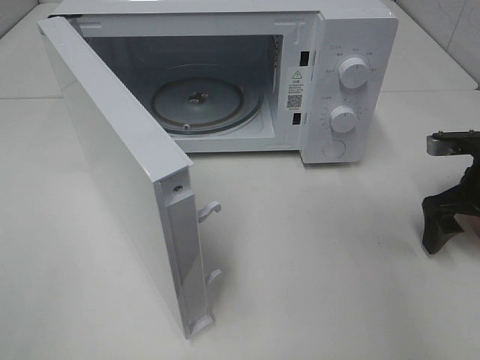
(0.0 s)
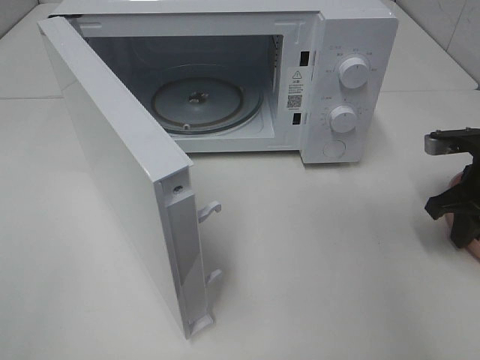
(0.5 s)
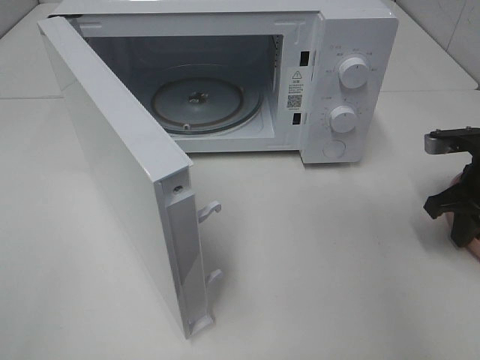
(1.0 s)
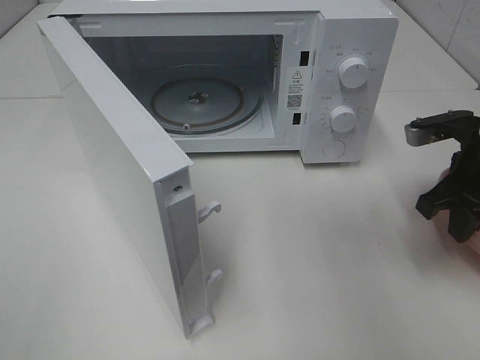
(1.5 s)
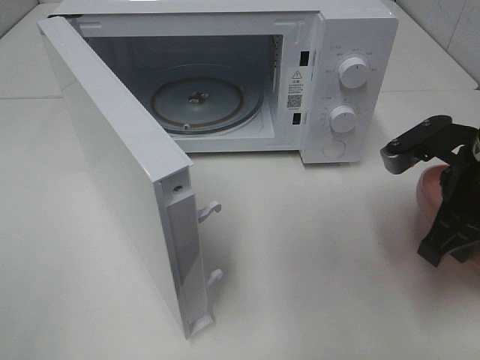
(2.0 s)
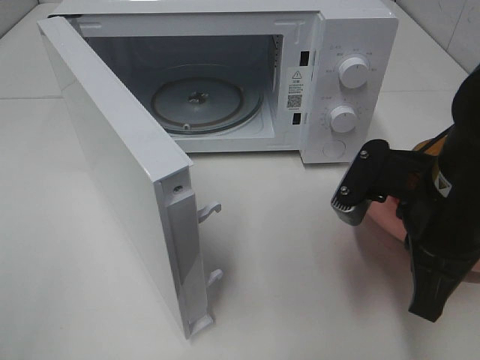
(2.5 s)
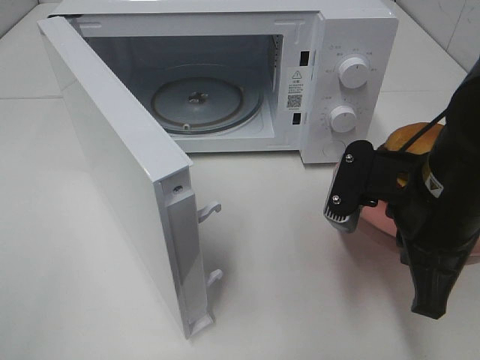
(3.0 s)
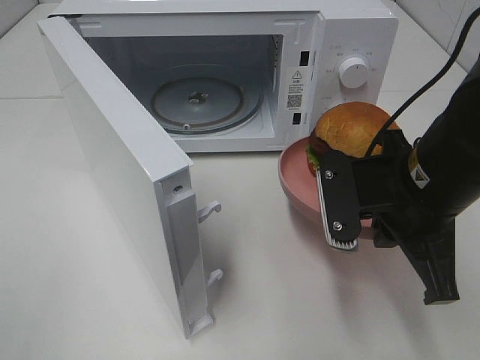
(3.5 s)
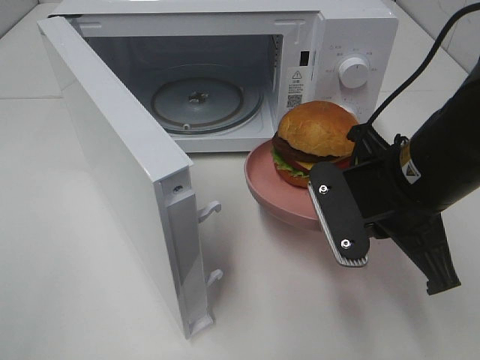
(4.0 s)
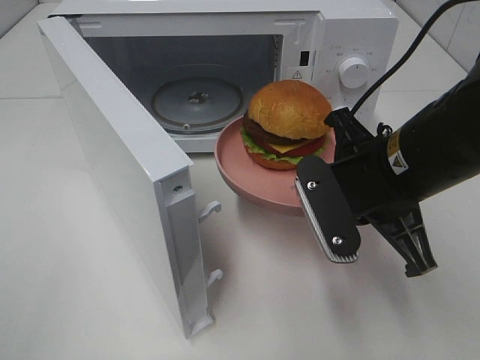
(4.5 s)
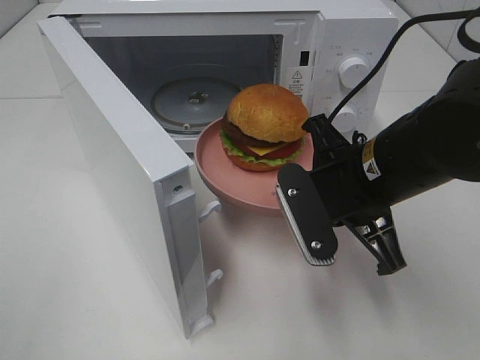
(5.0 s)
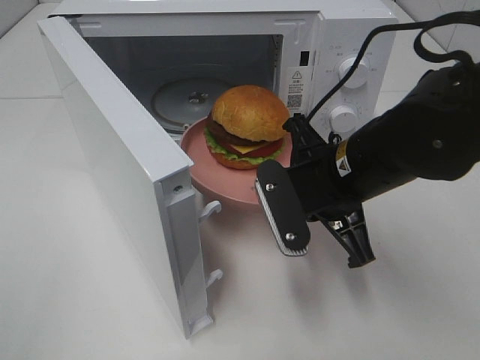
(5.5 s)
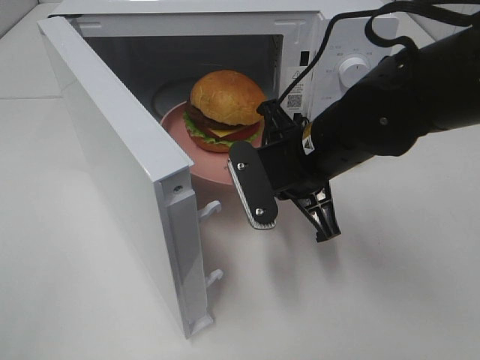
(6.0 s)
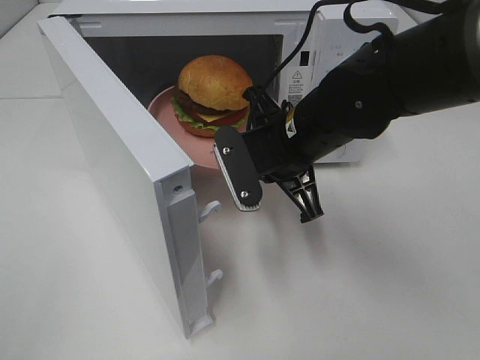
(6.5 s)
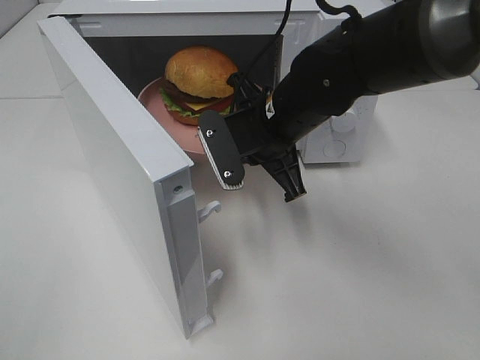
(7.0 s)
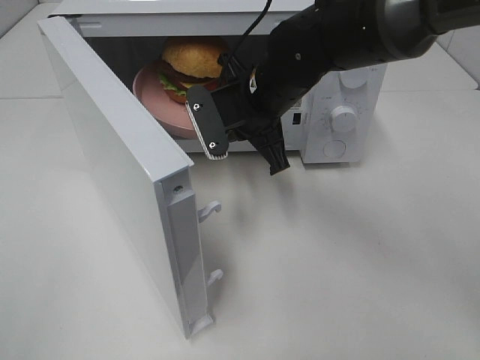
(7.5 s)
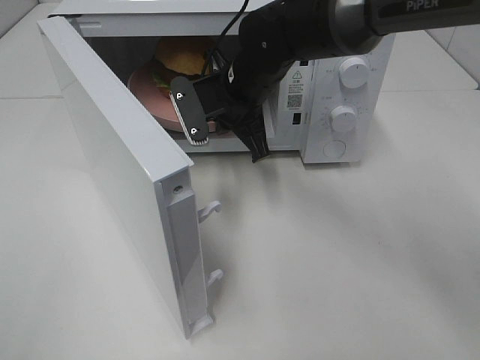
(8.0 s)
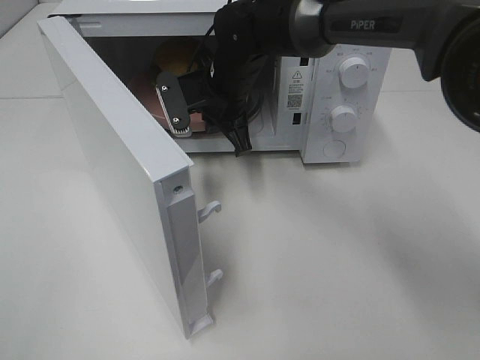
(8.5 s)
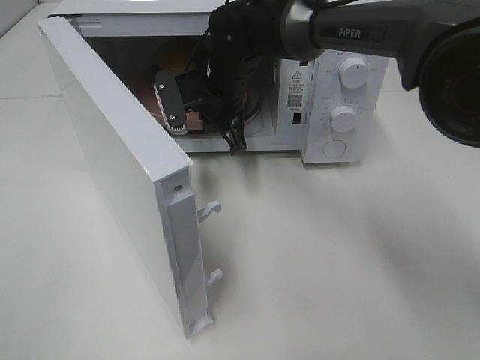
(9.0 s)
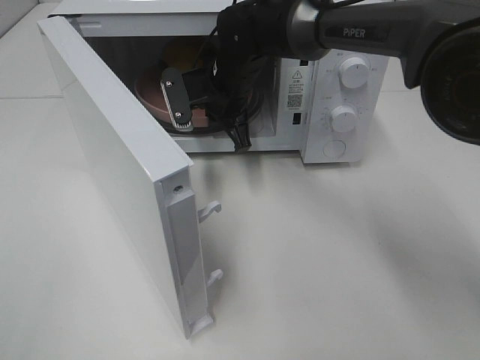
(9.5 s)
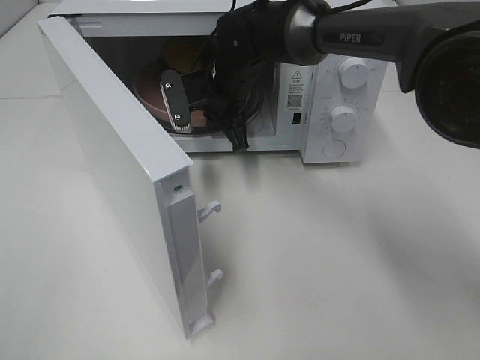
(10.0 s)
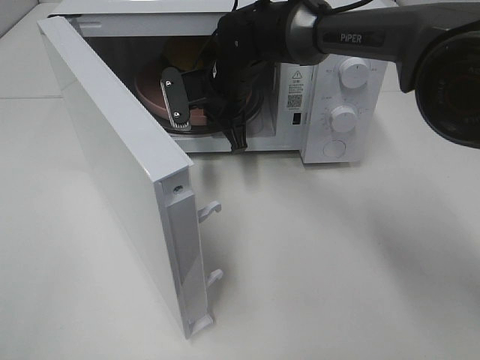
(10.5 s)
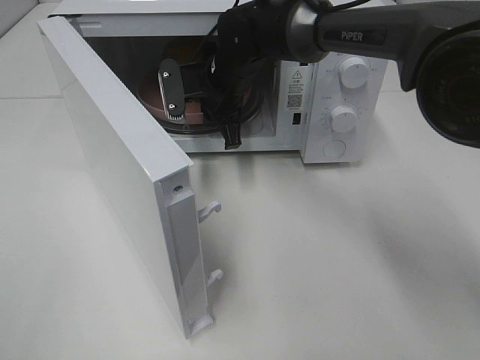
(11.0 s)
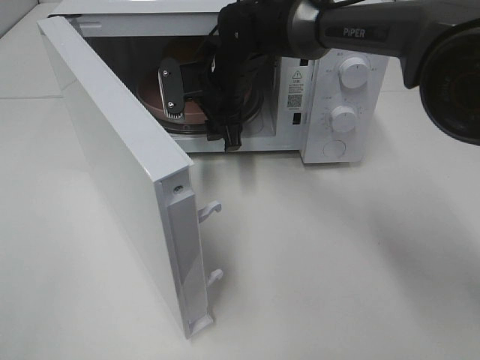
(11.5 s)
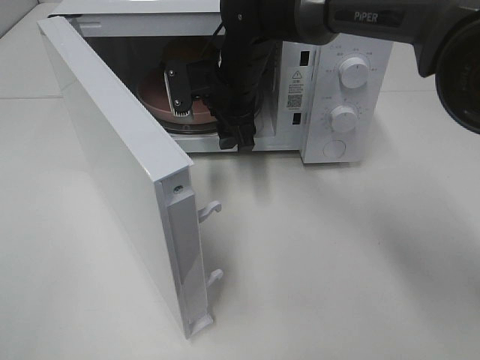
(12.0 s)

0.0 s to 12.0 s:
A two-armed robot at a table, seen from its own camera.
Task of the whole recording: Heat the burger.
Step, 0.5 to 11.0 s: Right hand: place the plate in the microwave.
0.0 to 2.0 s: The right gripper is displaced to the left, backward and upward by about 15 cm, and closes its fingers.
2.0 to 4.0 s: The right gripper shifts approximately 10 cm to the left.
4.0 to 6.0 s: The right gripper goes roughly 10 cm to the left and forward.
6.0 to 8.0 s: The right gripper goes about 15 cm forward and to the left.
8.0 to 10.0 s: The right gripper shifts by roughly 5 cm.
10.0 to 12.0 s: The right gripper opens.

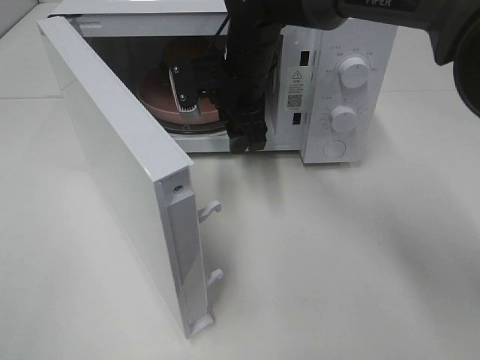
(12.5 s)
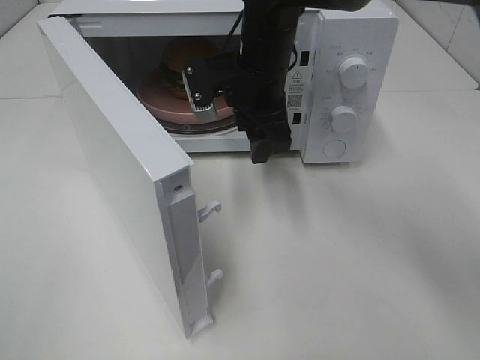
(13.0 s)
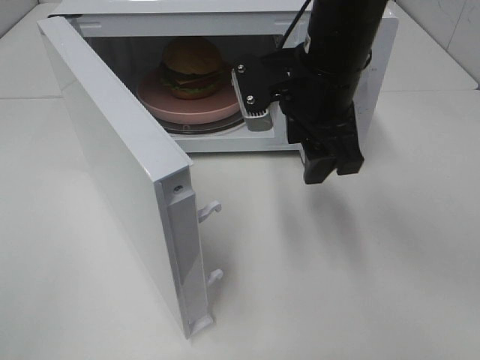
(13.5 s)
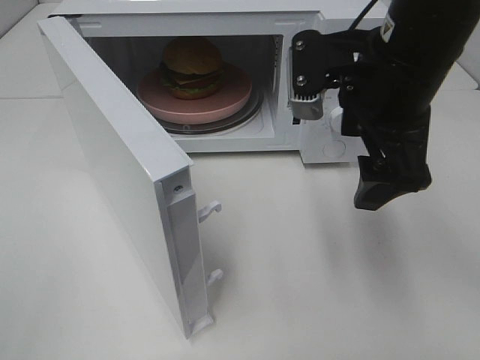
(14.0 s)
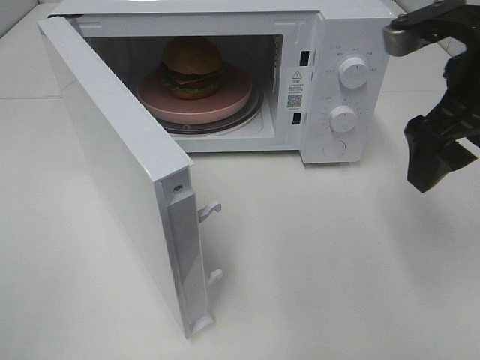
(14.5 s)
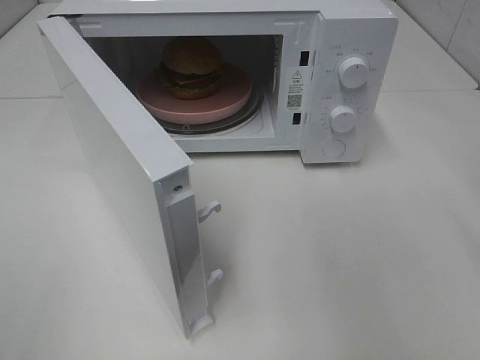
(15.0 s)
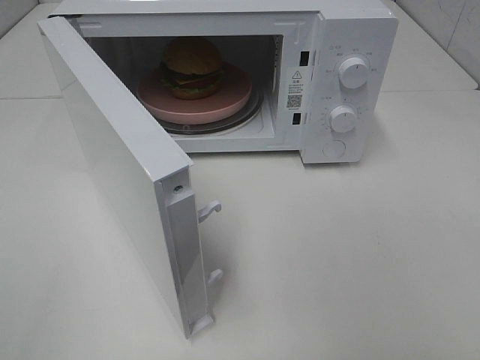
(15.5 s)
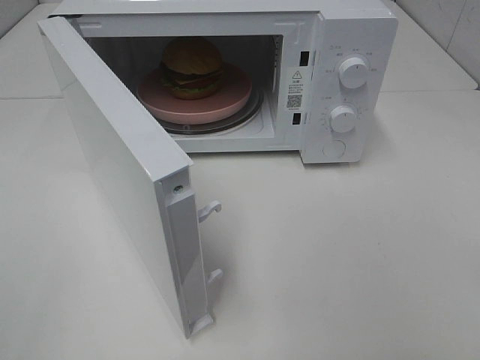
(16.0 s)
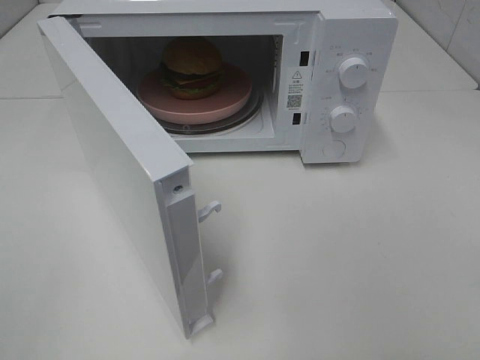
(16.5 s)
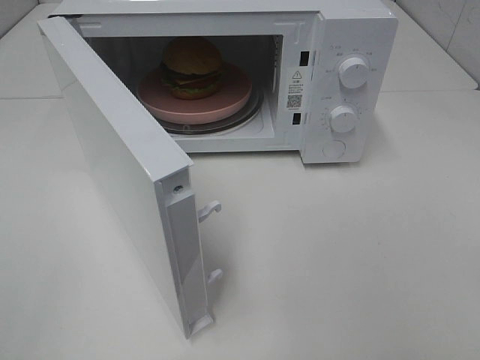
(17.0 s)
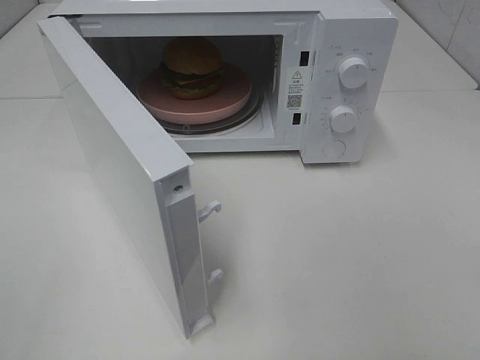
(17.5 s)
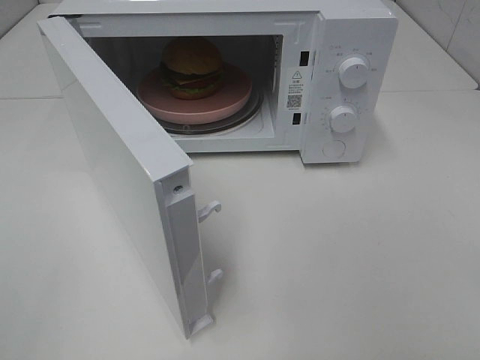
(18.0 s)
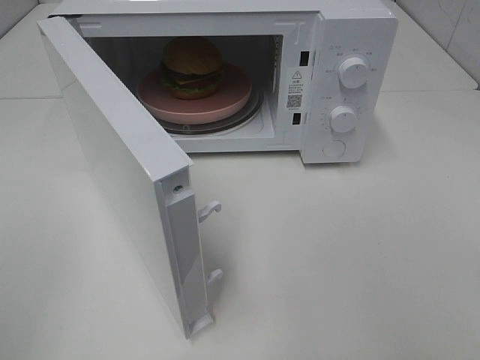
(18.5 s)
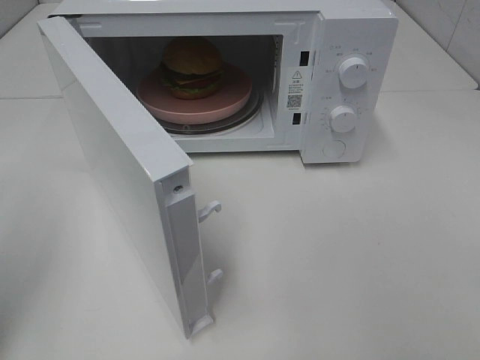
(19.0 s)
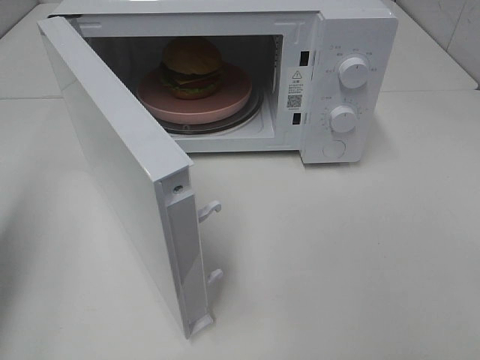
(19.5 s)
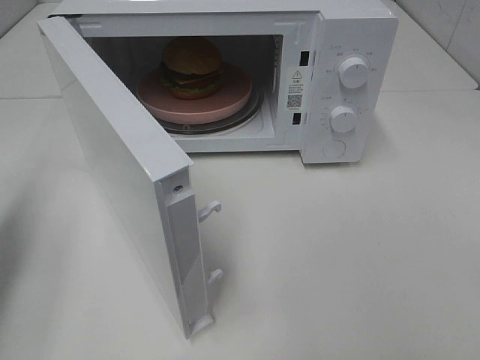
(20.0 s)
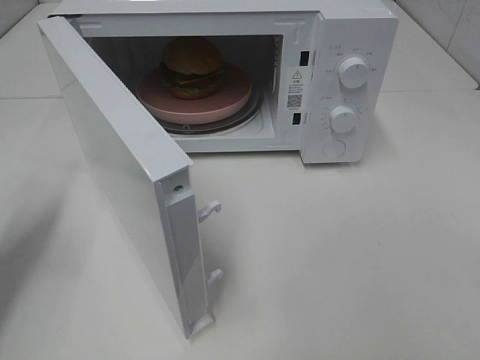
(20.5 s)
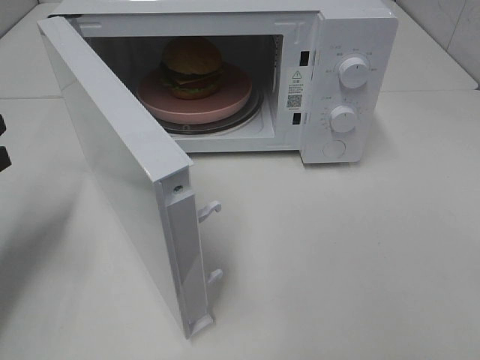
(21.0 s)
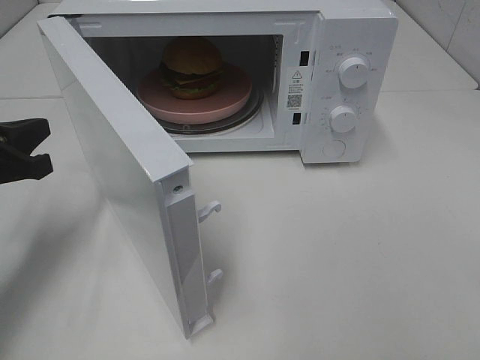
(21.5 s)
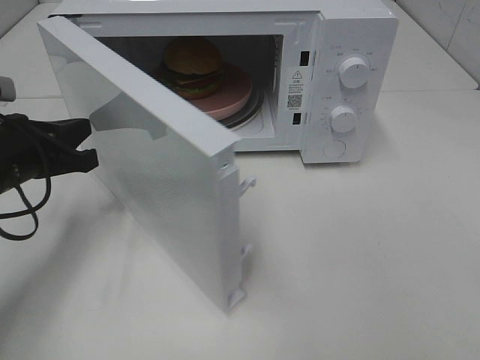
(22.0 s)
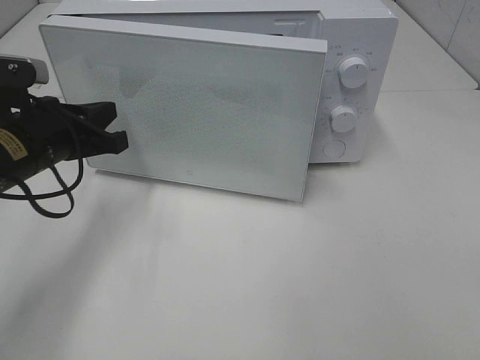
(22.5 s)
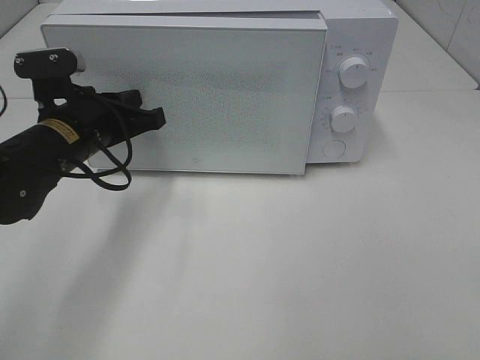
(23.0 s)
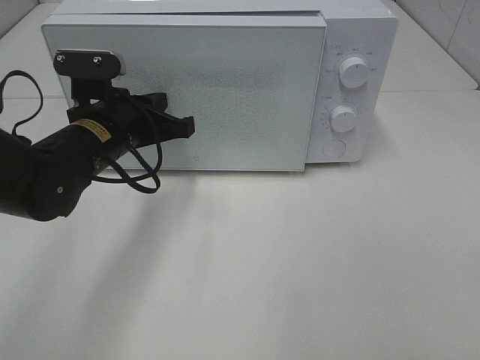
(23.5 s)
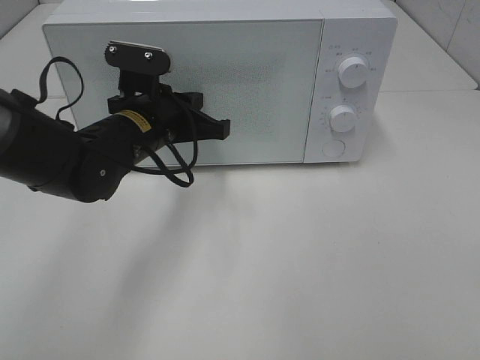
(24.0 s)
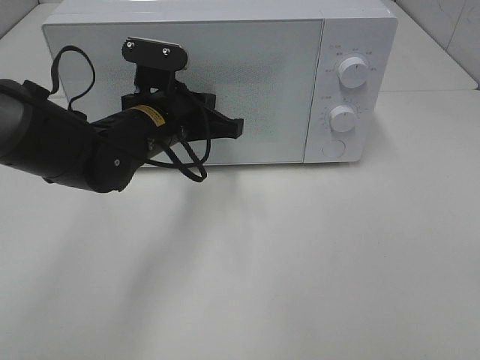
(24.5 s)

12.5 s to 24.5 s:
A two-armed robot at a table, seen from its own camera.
Task of the whole recording: Heat the burger.
12.5 to 14.5 s: The right gripper heads to the right, backward and upward, covering about 25 cm.
14.5 to 16.5 s: The right gripper travels backward by approximately 25 cm.
18.5 to 20.5 s: The left gripper heads forward and downward, covering about 25 cm, and closes up.
20.5 to 22.5 s: The left gripper shifts about 15 cm to the right and forward.
22.5 to 24.5 s: The left gripper is displaced to the right by roughly 10 cm.

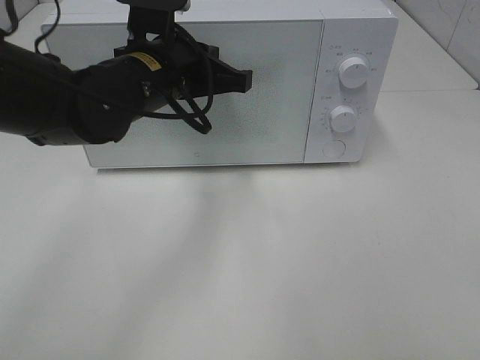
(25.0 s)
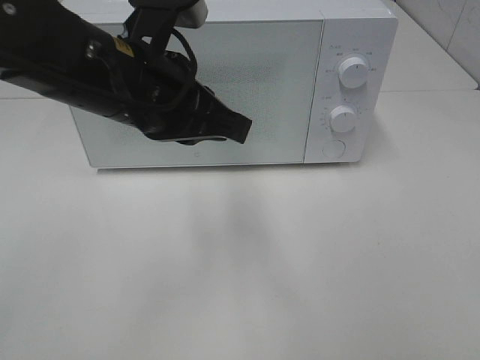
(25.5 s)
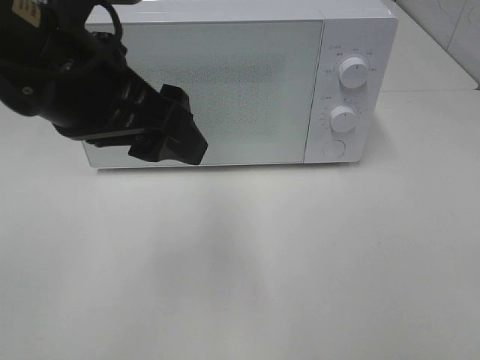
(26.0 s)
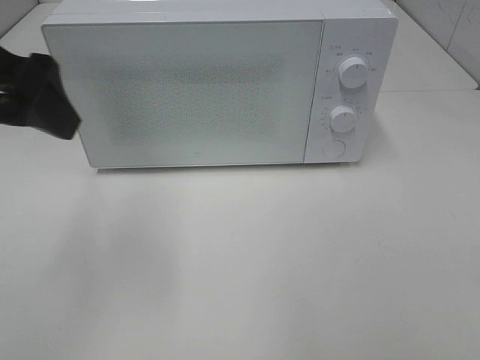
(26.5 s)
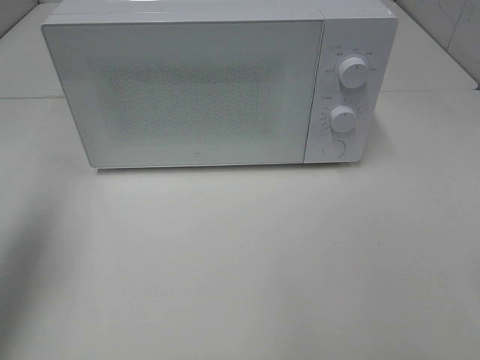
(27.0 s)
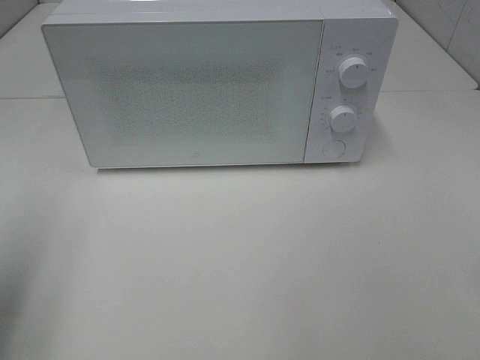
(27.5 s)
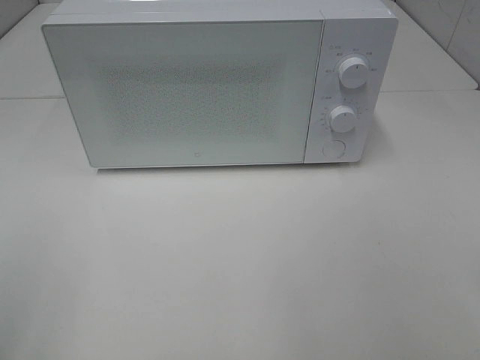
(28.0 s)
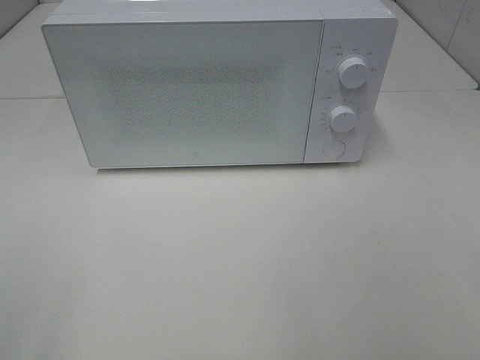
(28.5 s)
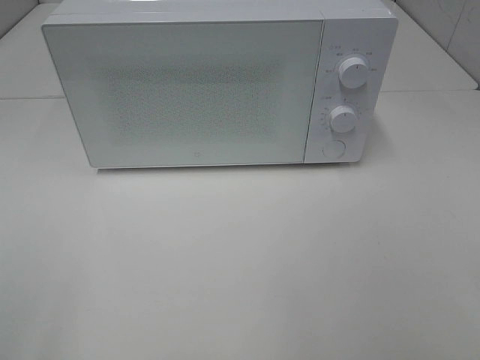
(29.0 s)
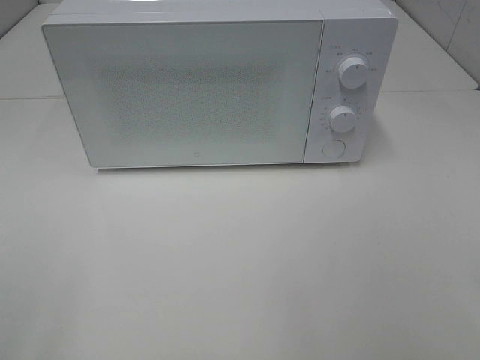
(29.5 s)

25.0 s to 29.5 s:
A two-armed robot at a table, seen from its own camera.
Task of the whole recording: Heat the burger.
25.0 to 27.0 s: The left gripper goes approximately 25 cm to the left, and opens up.
27.0 to 29.5 s: The left gripper moves backward, roughly 25 cm.
